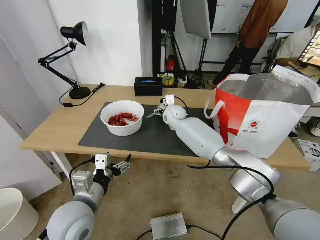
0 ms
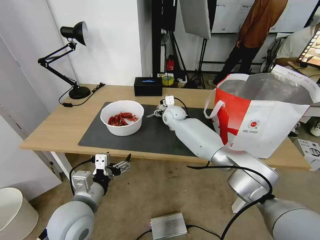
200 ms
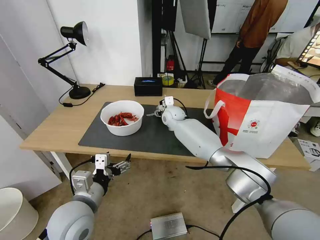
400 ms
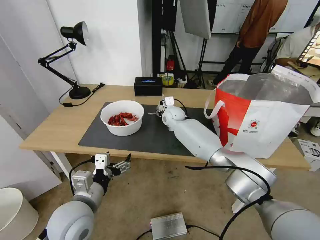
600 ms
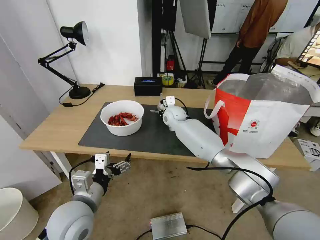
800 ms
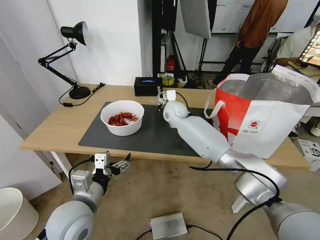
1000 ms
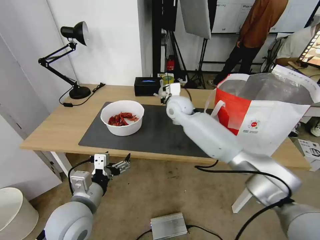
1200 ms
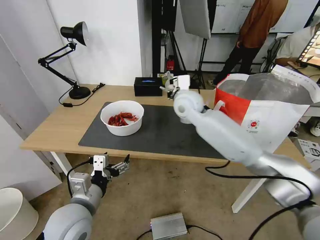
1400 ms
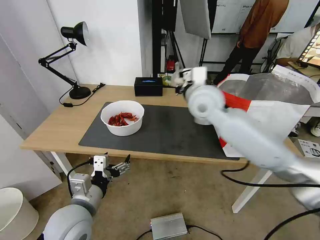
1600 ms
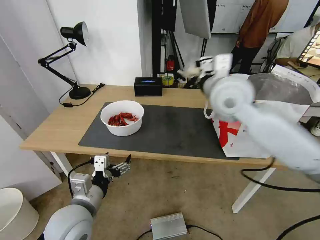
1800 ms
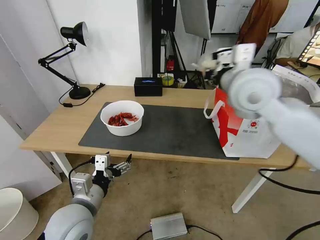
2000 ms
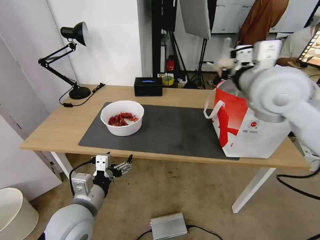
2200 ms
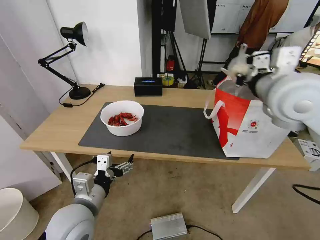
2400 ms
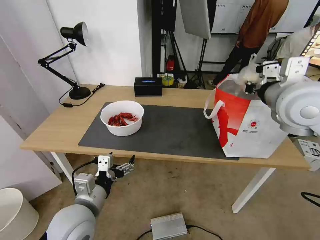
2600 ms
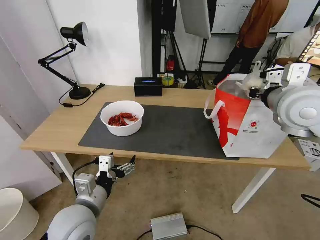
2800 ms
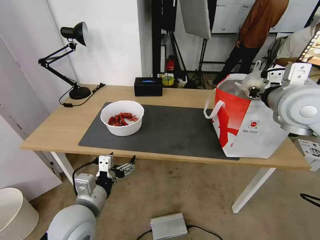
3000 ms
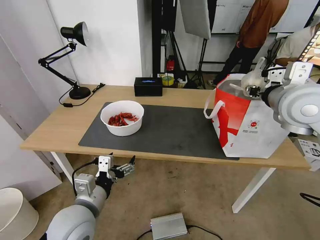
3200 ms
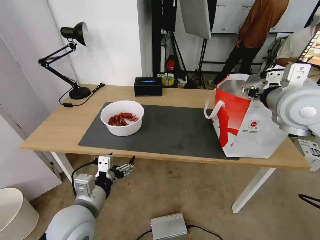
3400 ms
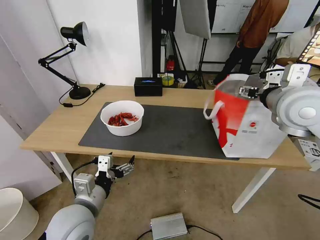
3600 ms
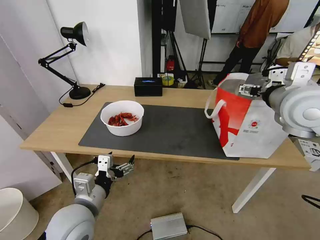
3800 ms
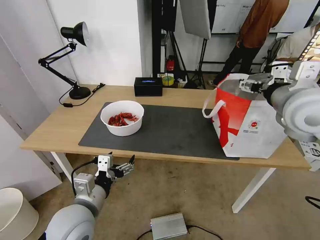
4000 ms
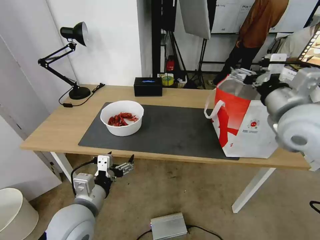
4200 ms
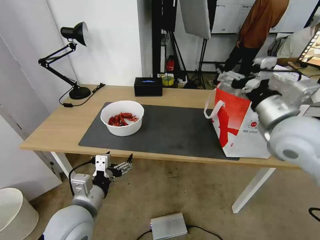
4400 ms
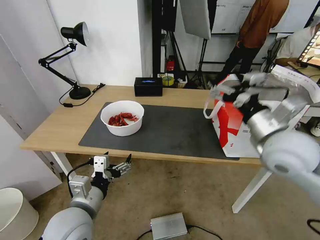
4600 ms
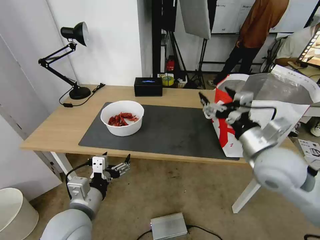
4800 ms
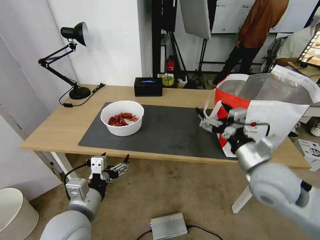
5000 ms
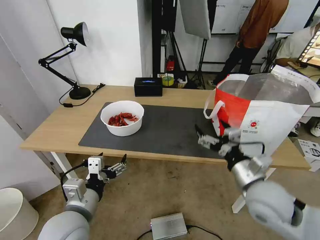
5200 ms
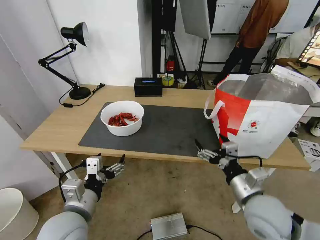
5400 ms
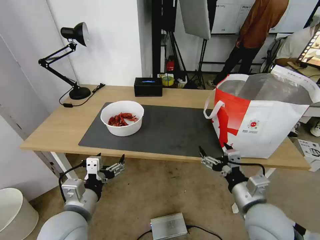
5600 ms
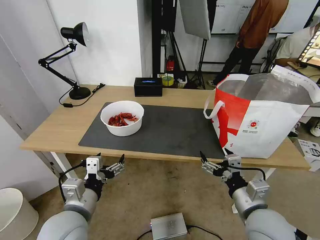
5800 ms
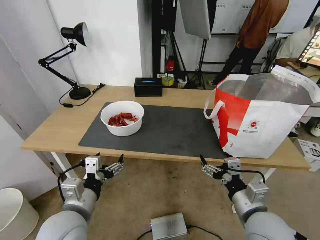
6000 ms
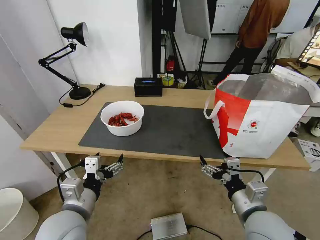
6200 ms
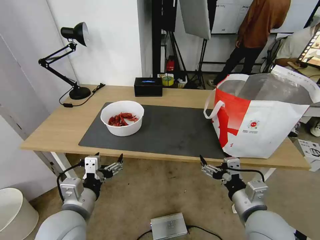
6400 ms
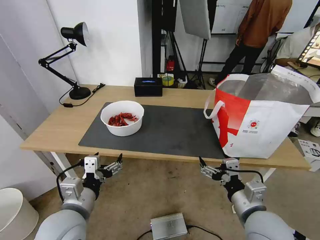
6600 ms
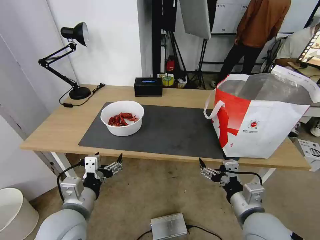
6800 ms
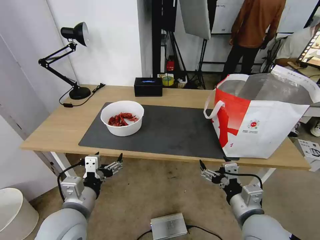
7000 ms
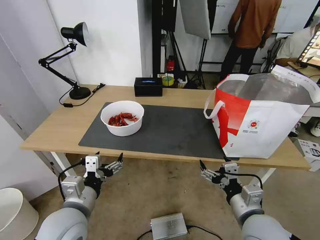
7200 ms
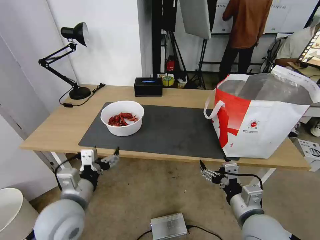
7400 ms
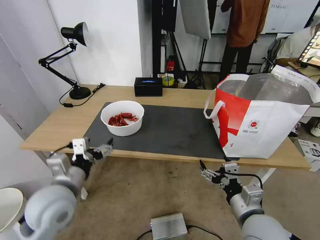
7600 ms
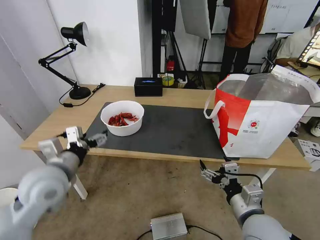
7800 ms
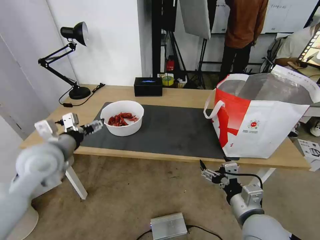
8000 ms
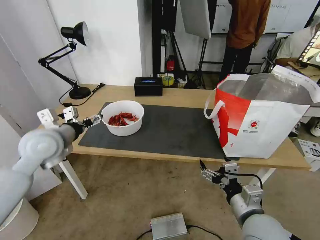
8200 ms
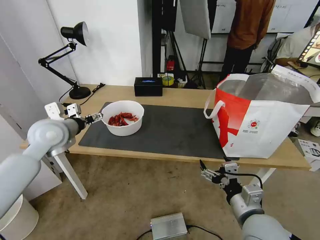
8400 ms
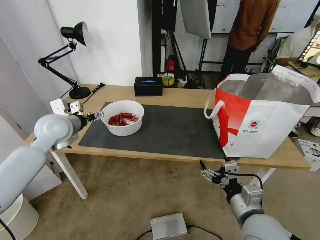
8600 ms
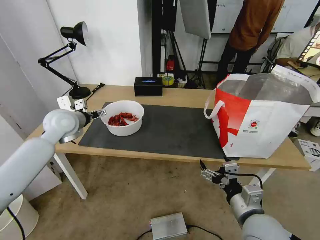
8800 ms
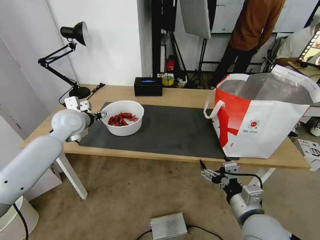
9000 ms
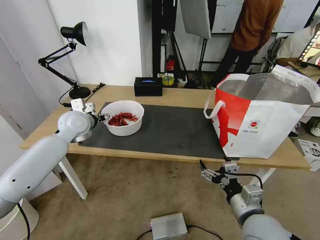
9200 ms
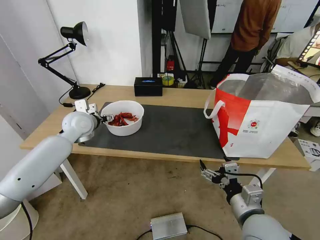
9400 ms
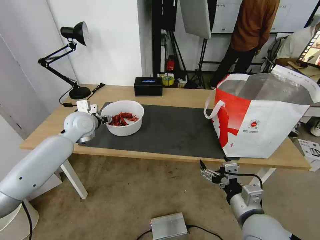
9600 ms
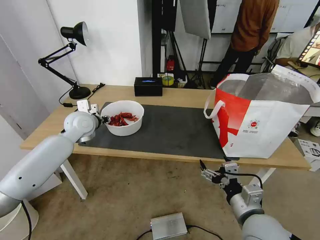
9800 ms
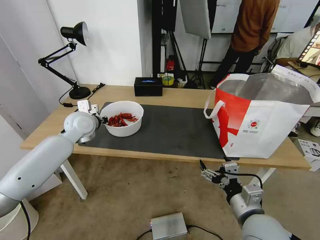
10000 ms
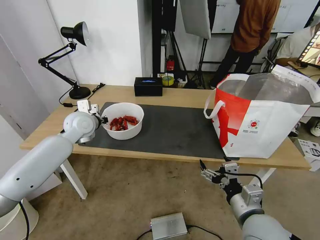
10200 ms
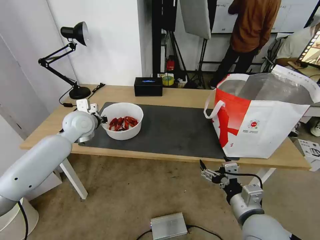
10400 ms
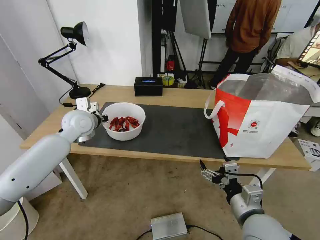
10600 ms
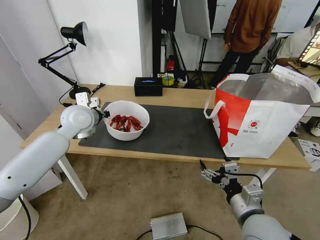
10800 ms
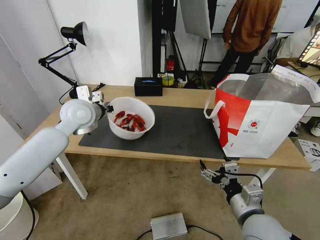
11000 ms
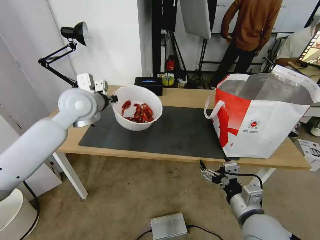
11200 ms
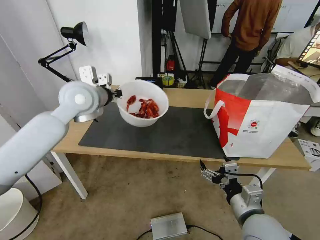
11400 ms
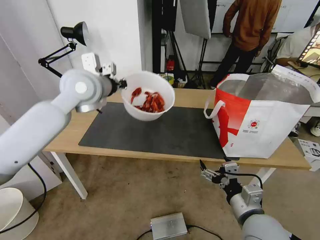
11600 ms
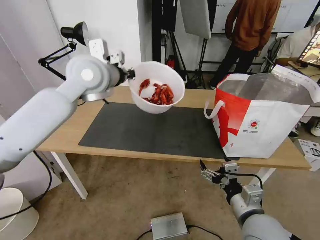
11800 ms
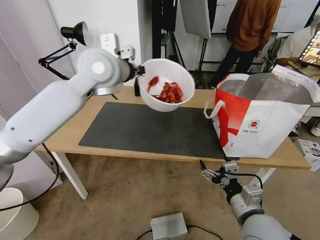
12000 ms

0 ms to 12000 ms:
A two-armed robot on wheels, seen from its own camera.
Task of the whole recording: Pick up the trash from the table and place it into the takeout bag.
0 ms to 1600 ms: The right gripper heads upward and backward, covering roughly 25 cm, and closes up.
1600 ms to 3000 ms: The right gripper shifts roughly 20 cm to the right and backward.
3000 ms to 4400 ms: The right gripper moves backward, about 5 cm, and opens.
4400 ms to 6000 ms: The right gripper moves downward and backward, approximately 25 cm.
6000 ms to 7600 ms: The left gripper shifts by roughly 5 cm.
7600 ms to 9000 ms: The left gripper is displaced forward by approximately 25 cm.
9000 ms to 10400 ms: The left gripper closes its fingers.
10400 ms to 12000 ms: The left gripper is displaced upward and to the right by roughly 25 cm.

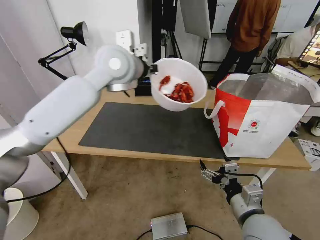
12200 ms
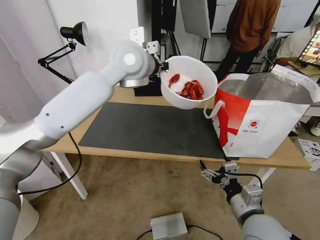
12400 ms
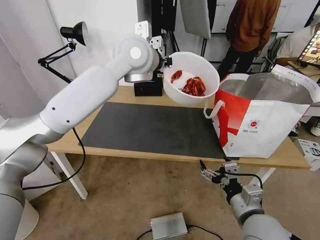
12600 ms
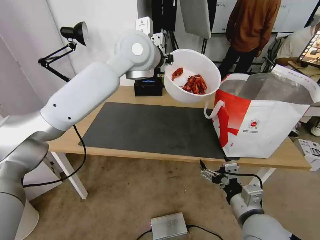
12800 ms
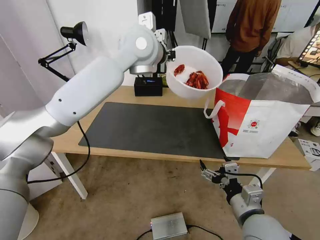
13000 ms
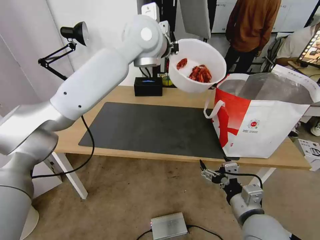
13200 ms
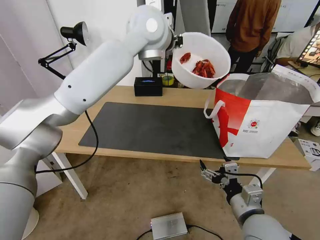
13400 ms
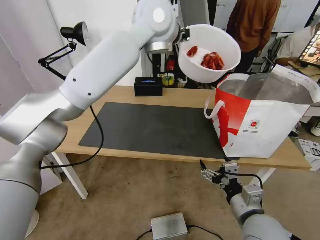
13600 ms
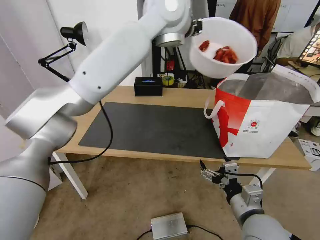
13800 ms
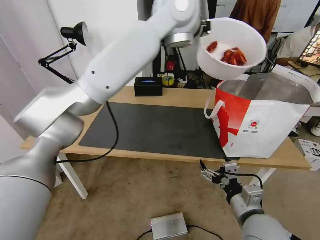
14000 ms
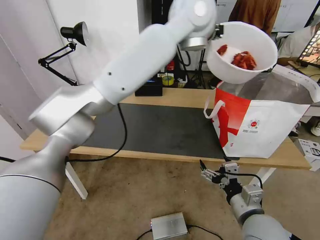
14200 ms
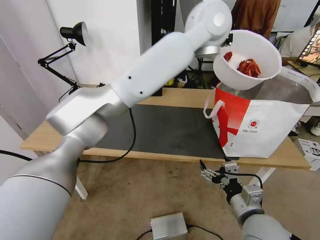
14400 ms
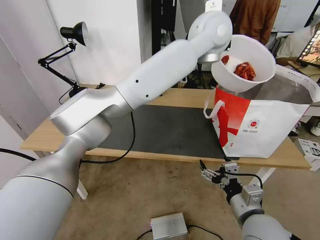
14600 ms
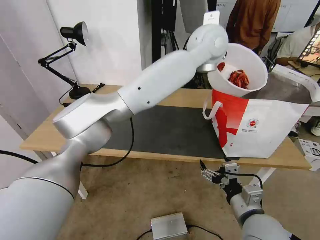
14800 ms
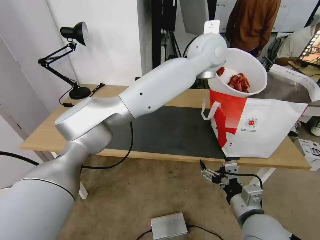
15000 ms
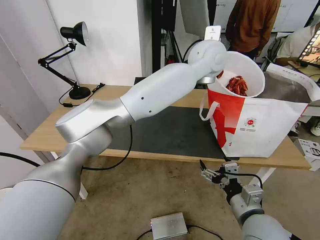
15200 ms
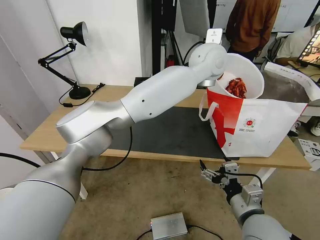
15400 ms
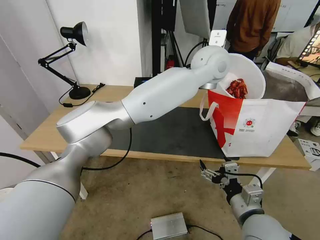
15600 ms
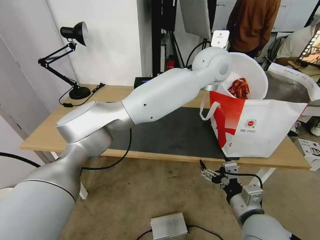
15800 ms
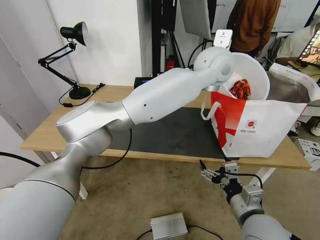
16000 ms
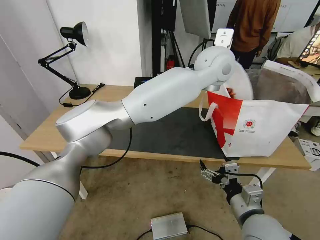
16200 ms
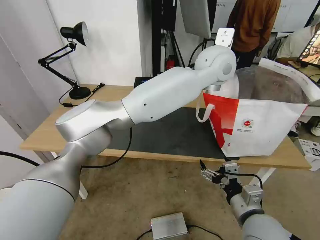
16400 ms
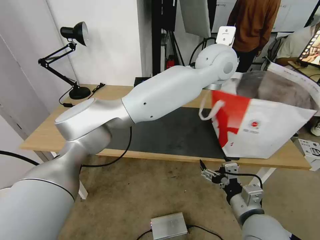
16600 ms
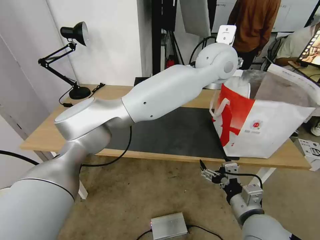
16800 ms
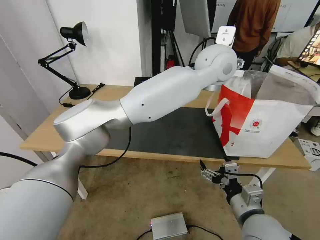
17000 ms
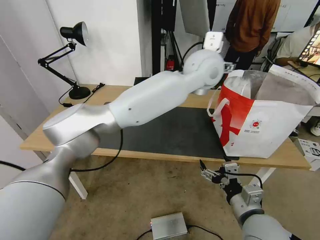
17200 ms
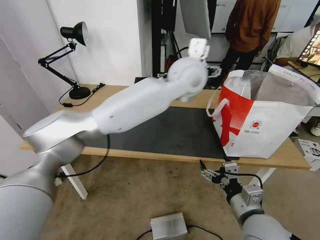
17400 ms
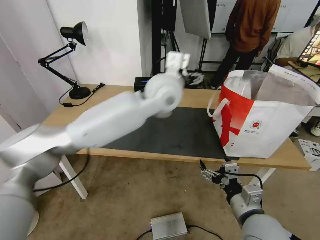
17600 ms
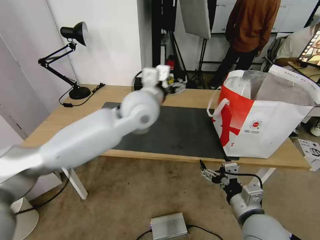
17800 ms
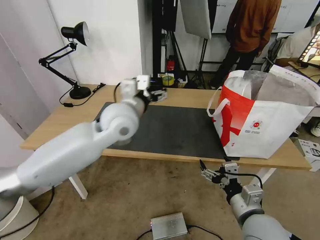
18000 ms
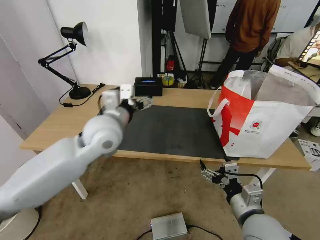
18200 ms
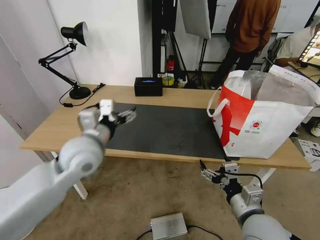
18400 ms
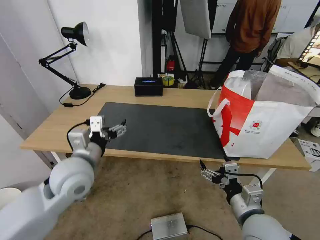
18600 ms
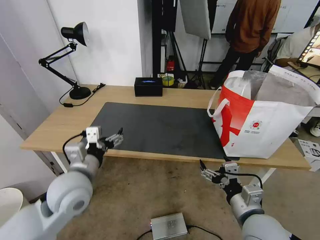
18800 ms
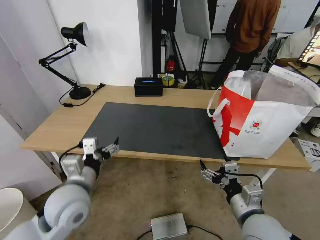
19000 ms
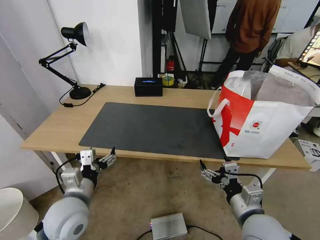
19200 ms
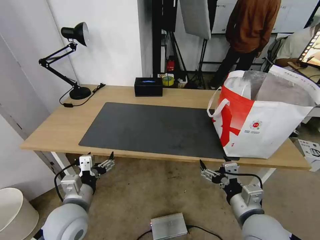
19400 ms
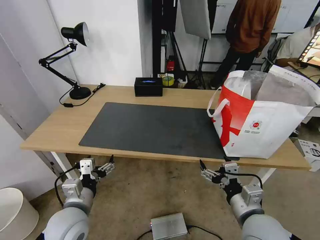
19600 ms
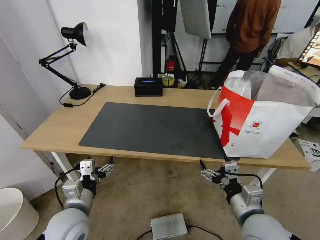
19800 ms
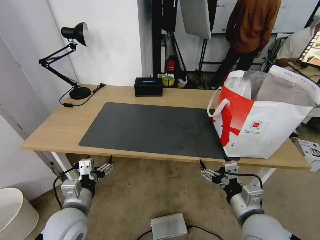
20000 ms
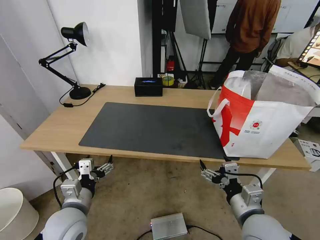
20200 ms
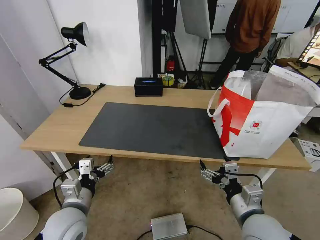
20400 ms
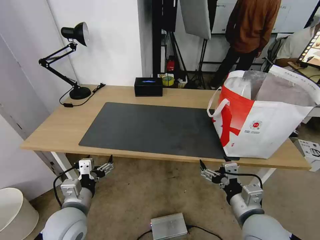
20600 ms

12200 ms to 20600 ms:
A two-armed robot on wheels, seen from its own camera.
Task of the whole recording: Pick up the trash from the table and place it into the takeout bag.
12200 ms to 13600 ms: The left gripper shifts some 10 cm to the right and upward.
13600 ms to 15000 ms: The left gripper goes roughly 15 cm to the right and downward.
15000 ms to 16400 ms: The left gripper opens up.
16400 ms to 17800 ms: The left gripper is displaced to the left and downward by about 25 cm, and opens.
17800 ms to 19200 ms: The left gripper is displaced backward, downward and to the left by approximately 30 cm.
19200 ms to 20600 ms: The grippers make only small movements.

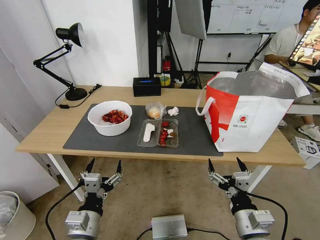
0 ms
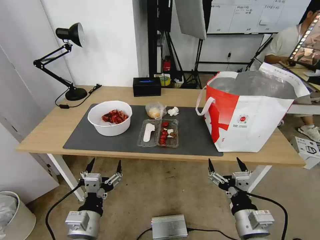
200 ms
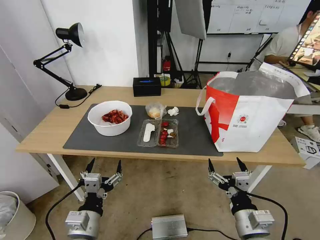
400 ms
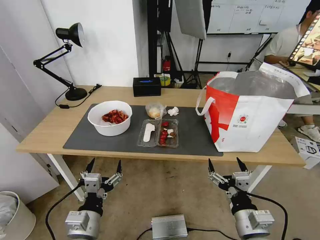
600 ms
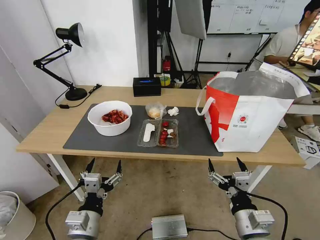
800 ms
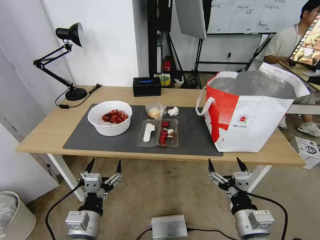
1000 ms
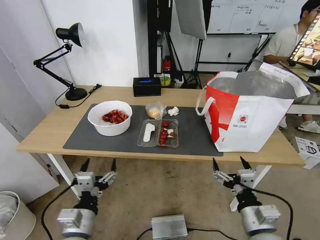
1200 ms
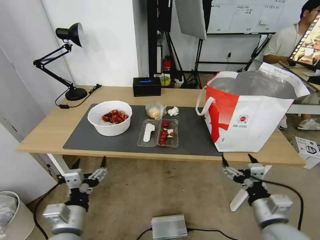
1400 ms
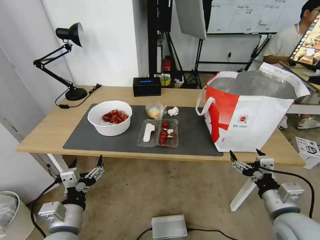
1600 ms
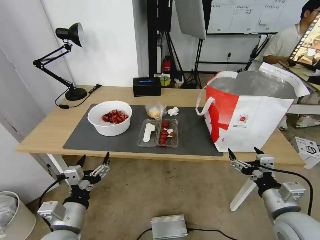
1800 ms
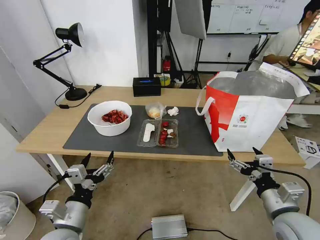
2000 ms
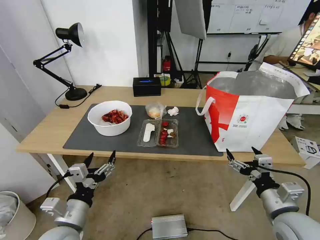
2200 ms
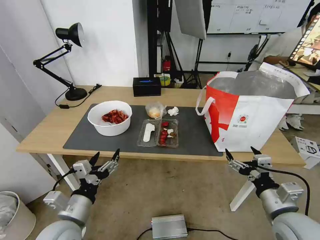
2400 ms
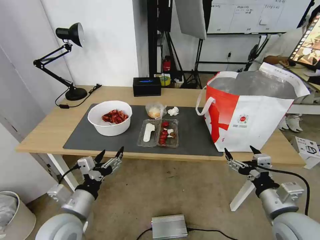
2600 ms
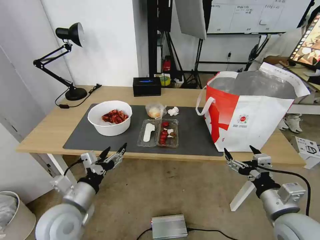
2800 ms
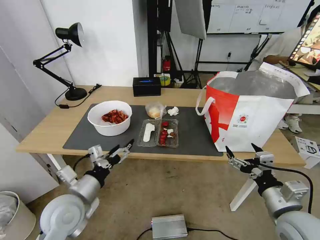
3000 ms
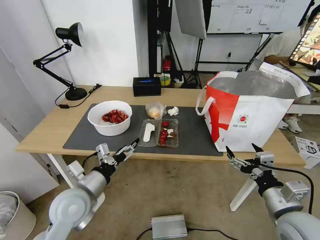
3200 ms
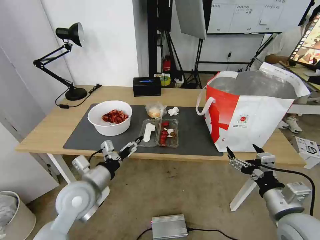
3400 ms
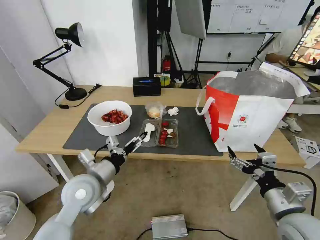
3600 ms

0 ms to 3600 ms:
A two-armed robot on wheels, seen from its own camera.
Task of the whole recording: Pick up the trash from the table and place it into the takeout bag.
1800 ms to 3600 ms: The left gripper is displaced forward by roughly 15 cm.
